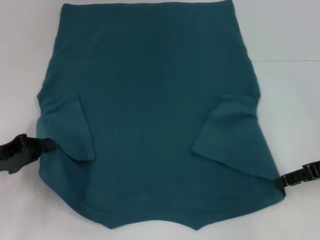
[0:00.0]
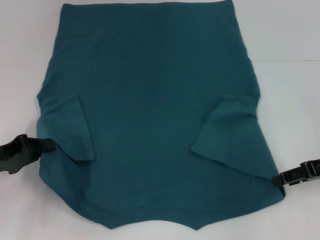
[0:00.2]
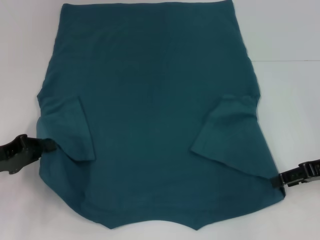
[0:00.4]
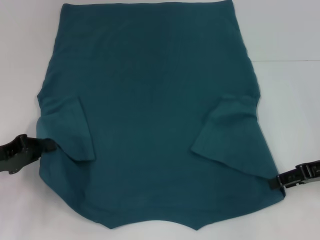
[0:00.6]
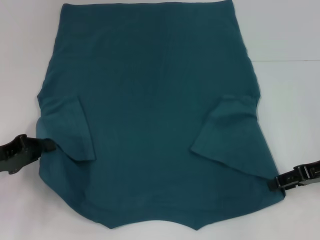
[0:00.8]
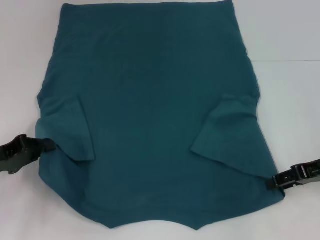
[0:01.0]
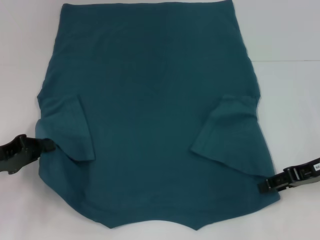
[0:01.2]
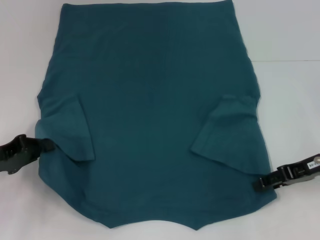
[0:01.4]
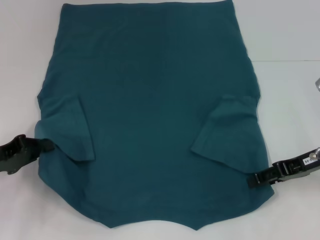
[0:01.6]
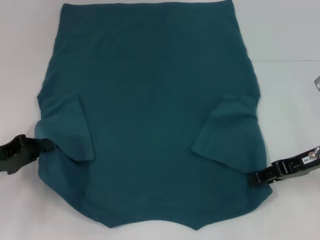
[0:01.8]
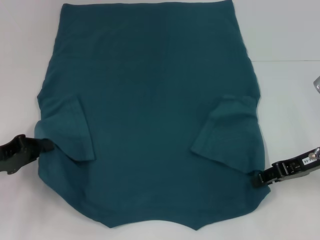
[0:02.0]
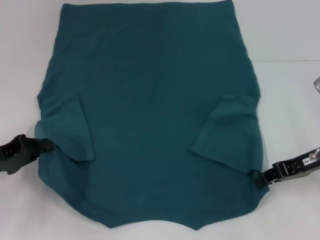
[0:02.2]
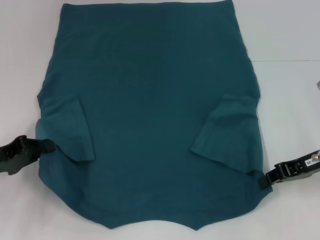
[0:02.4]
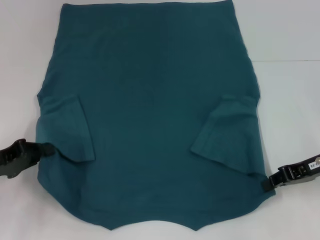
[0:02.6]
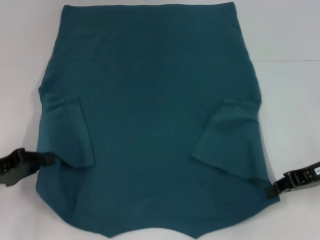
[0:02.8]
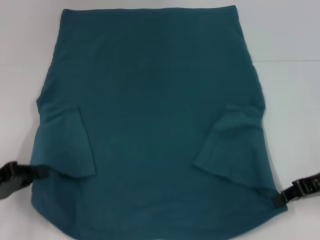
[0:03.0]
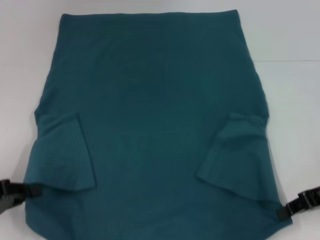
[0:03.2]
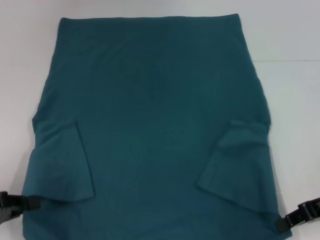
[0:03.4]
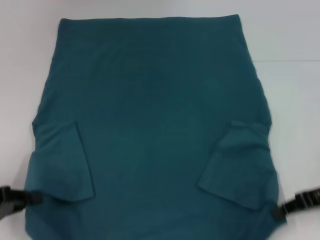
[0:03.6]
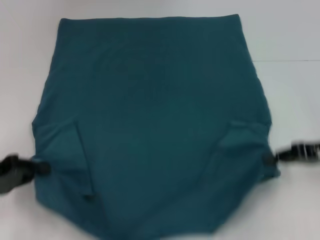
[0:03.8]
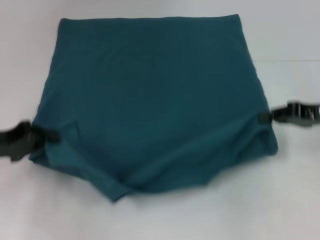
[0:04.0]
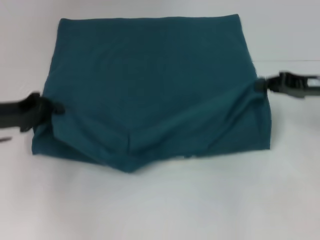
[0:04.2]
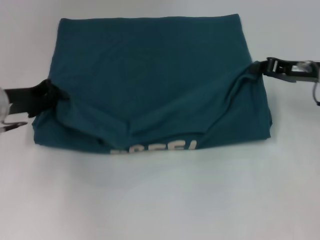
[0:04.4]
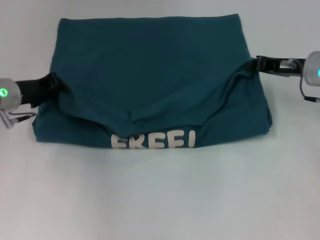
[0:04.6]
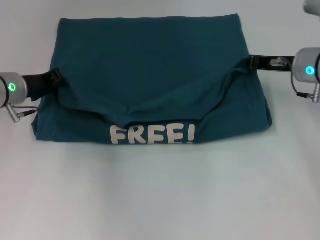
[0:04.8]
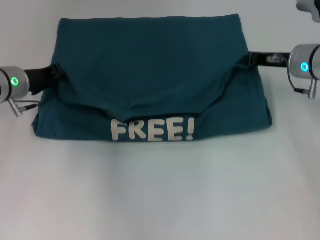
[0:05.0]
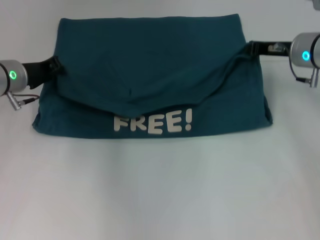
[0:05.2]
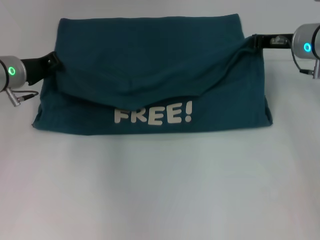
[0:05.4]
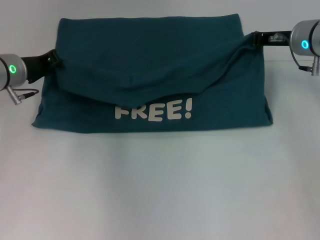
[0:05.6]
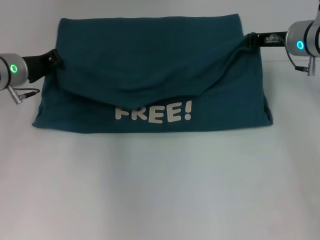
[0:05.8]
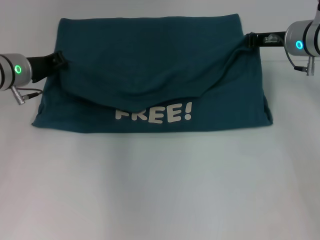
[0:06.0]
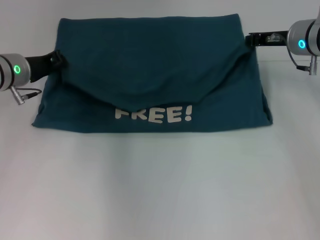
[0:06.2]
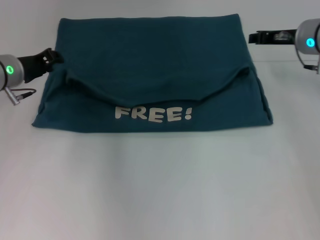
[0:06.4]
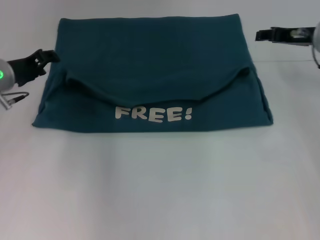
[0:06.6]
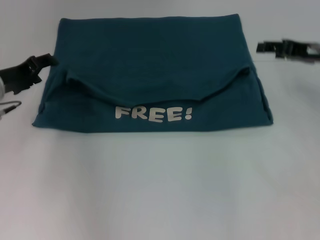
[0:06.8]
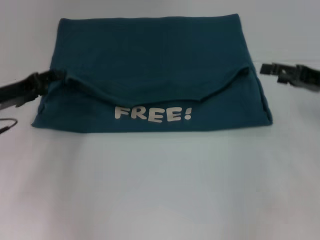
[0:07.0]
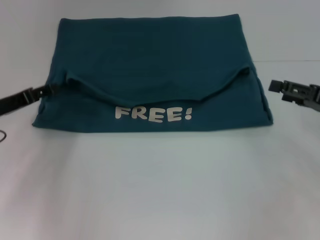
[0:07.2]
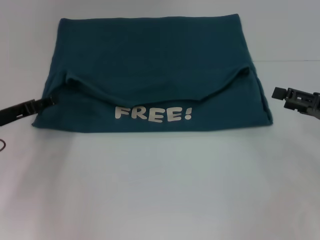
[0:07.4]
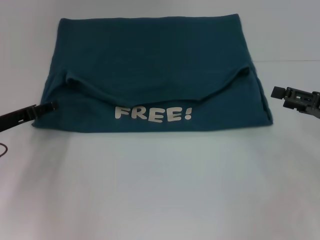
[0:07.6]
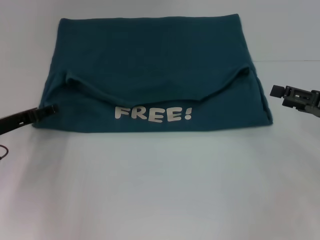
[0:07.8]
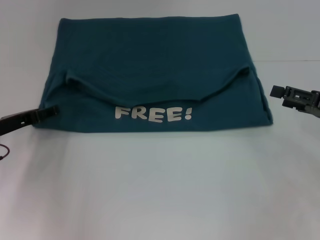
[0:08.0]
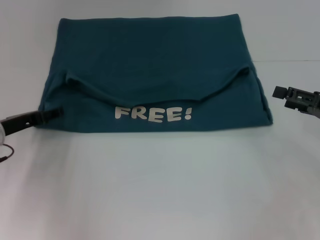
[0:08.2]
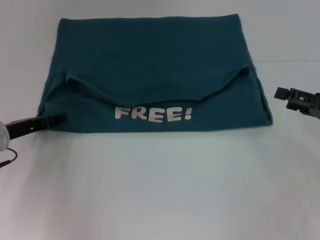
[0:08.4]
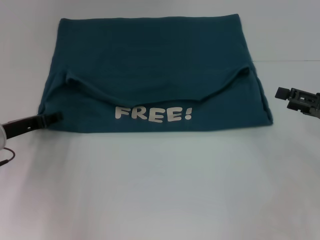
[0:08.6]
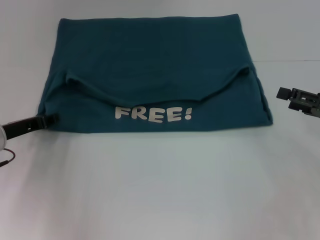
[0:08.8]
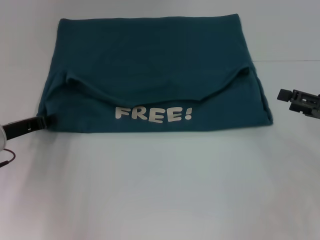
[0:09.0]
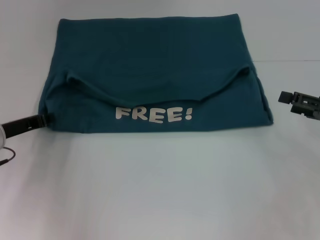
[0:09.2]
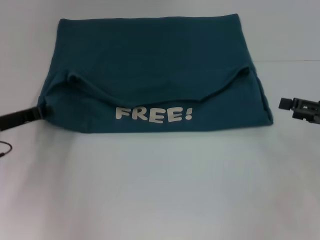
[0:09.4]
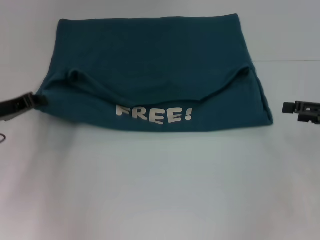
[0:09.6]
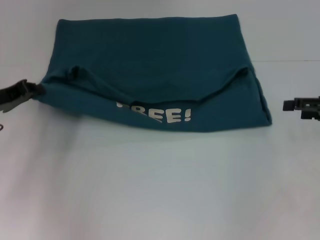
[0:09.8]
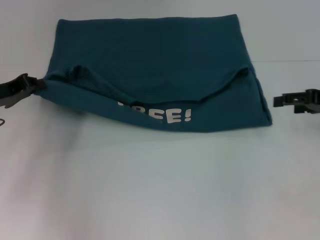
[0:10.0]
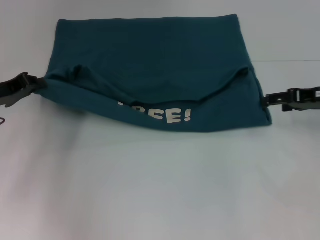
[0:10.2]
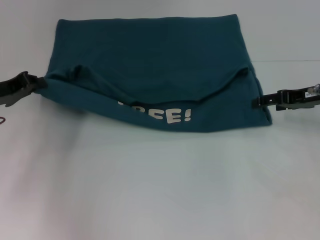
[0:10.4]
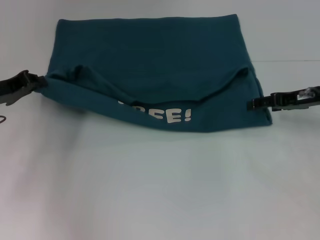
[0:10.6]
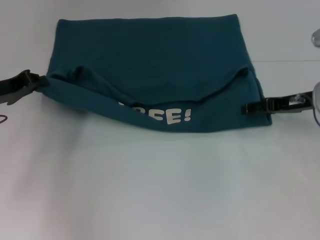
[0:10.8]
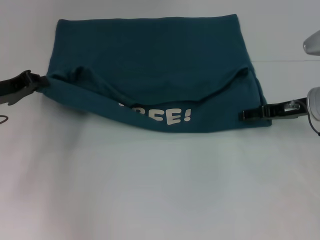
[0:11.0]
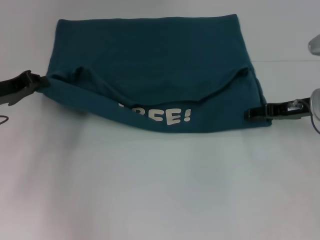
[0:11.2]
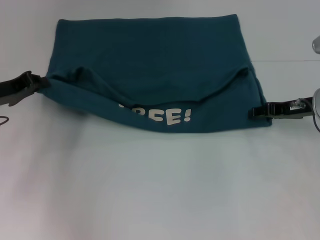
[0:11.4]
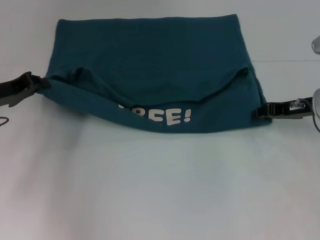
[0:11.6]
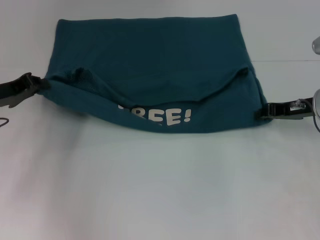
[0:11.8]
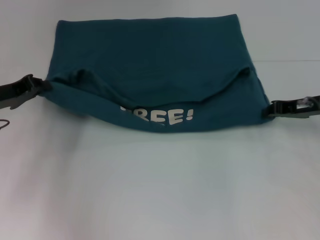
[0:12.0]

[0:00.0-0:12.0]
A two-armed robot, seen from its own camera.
Step, 0:00.0 to 0:02.2: Grab the bottom right corner with your right hand.
Step, 0:02.4 to 0:06.6: Fold the clothes to the left.
Step, 0:02.4 to 0:06.6: Fold the clothes to the right.
0:00.0 to 0:01.6: The grippers make only small movements.
0:01.6 to 0:03.0: The right gripper closes up.
0:03.0 to 0:04.4: Both grippers move forward, roughly 10 cm.
0:04.4 to 0:06.0: The left gripper is displaced forward by some 5 cm, while the right gripper goes approximately 10 cm forward and to the left.
0:06.0 to 0:07.6: The left gripper goes approximately 10 cm backward, to the left and downward, and opens up; the right gripper heads backward and to the right, covering approximately 20 cm, and opens up.
0:07.6 to 0:09.0: The left gripper closes.
0:09.0 to 0:10.4: The left gripper travels upward by some 5 cm, and closes, while the right gripper is displaced forward and to the left by some 10 cm.
0:10.4 to 0:12.0: The right gripper closes its fingers.

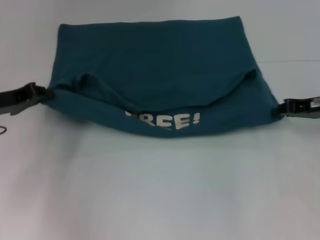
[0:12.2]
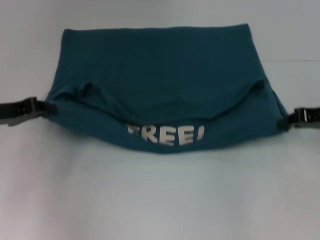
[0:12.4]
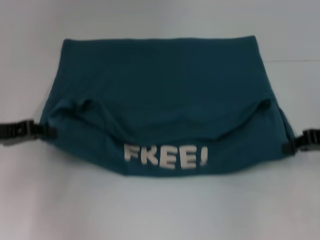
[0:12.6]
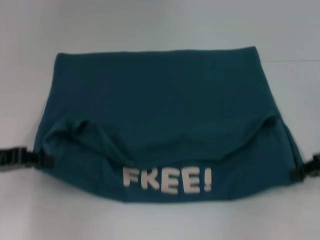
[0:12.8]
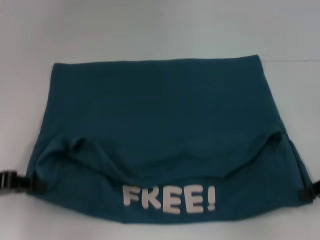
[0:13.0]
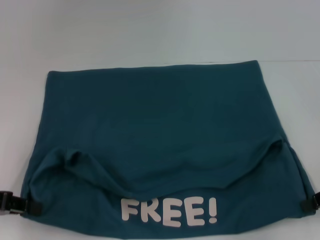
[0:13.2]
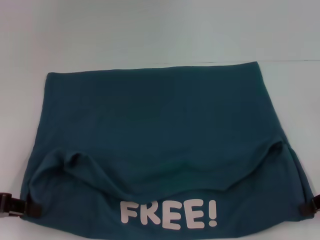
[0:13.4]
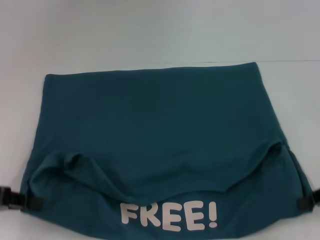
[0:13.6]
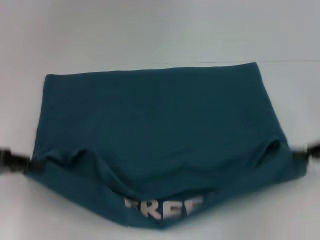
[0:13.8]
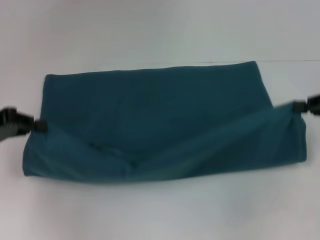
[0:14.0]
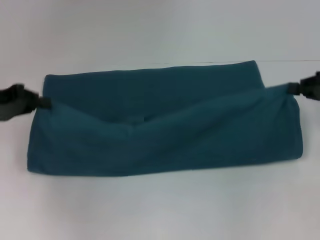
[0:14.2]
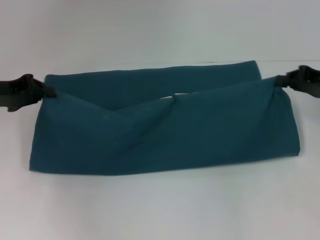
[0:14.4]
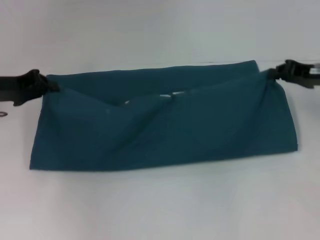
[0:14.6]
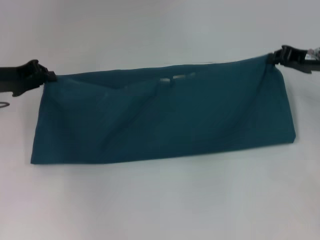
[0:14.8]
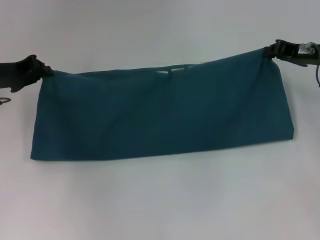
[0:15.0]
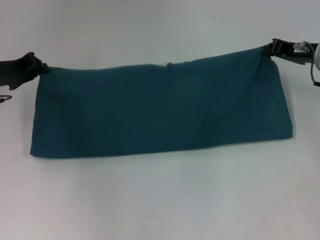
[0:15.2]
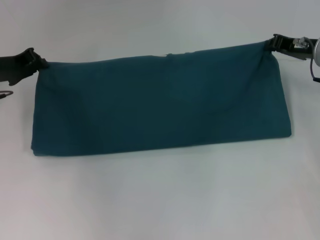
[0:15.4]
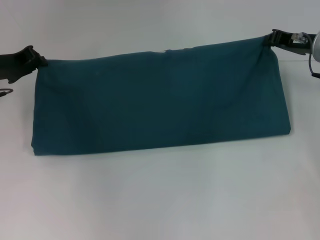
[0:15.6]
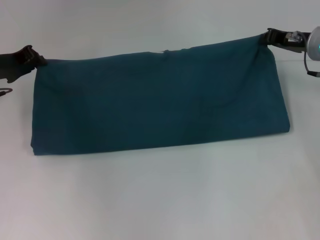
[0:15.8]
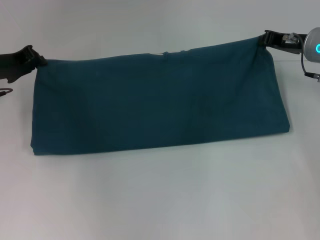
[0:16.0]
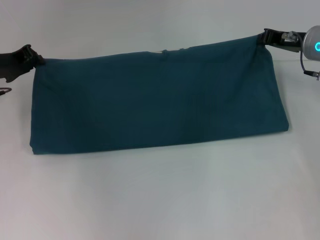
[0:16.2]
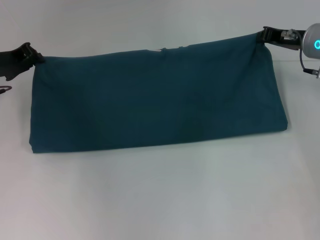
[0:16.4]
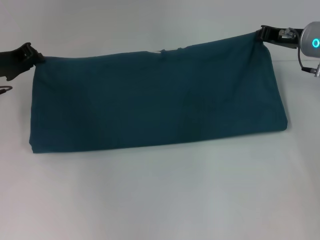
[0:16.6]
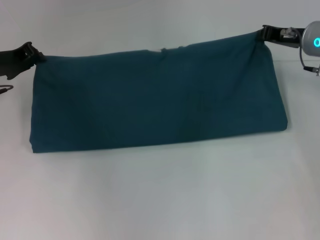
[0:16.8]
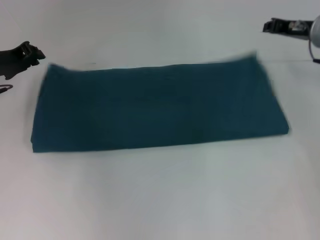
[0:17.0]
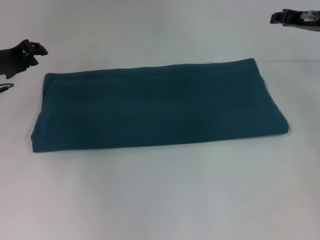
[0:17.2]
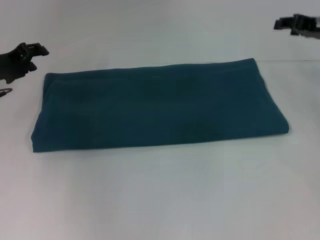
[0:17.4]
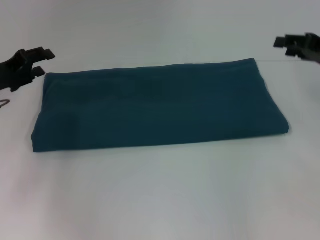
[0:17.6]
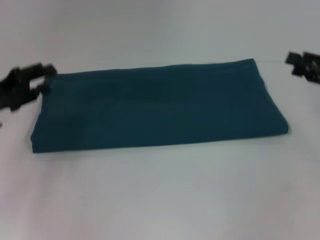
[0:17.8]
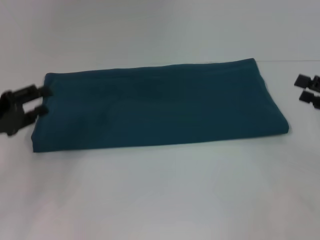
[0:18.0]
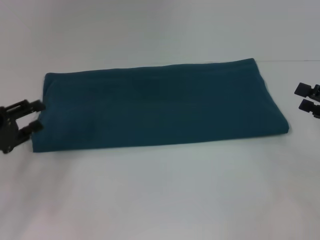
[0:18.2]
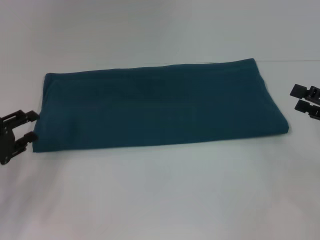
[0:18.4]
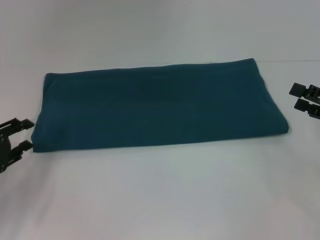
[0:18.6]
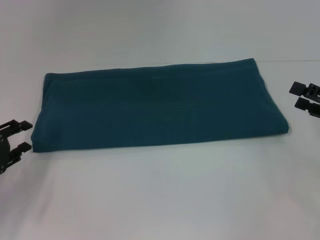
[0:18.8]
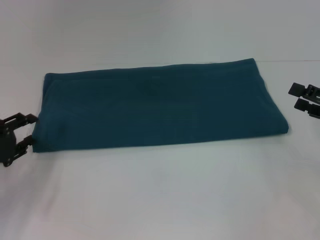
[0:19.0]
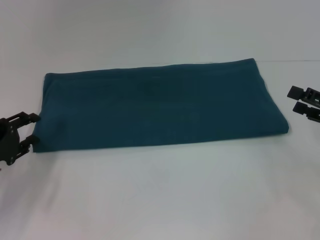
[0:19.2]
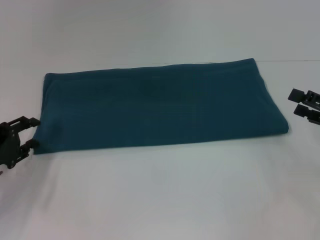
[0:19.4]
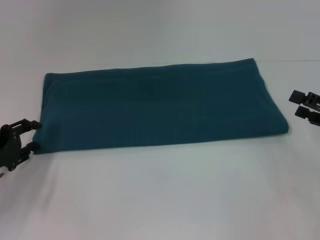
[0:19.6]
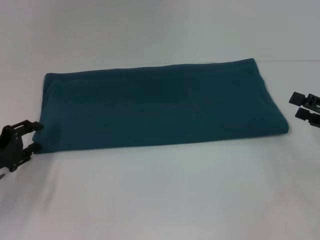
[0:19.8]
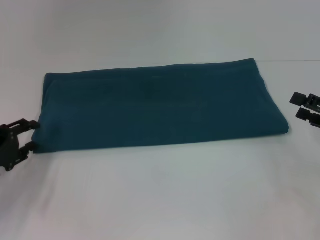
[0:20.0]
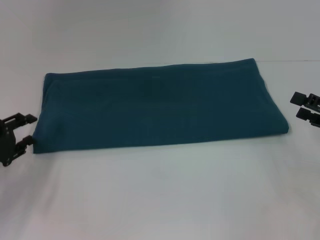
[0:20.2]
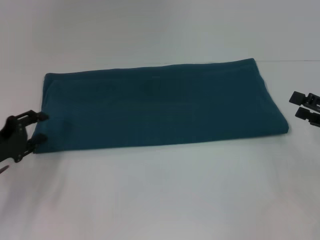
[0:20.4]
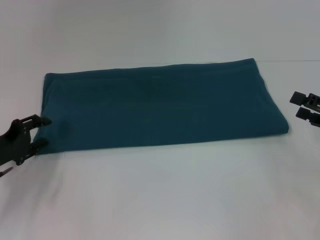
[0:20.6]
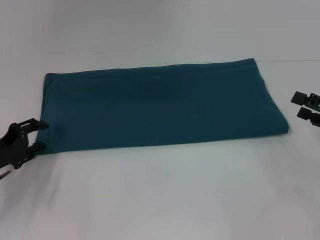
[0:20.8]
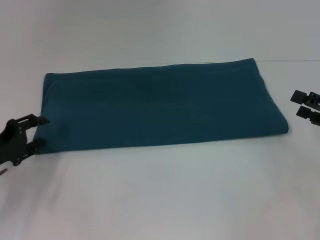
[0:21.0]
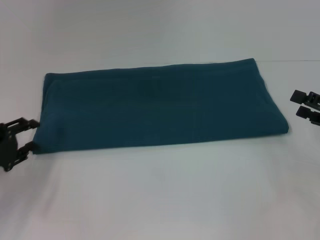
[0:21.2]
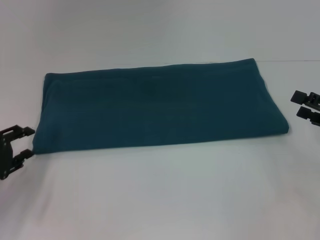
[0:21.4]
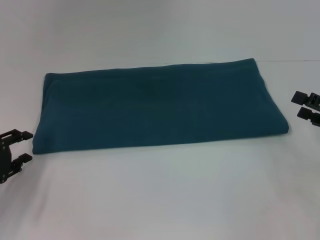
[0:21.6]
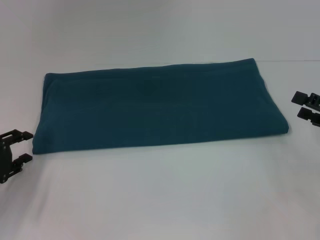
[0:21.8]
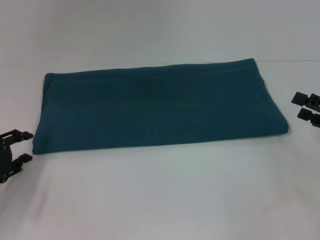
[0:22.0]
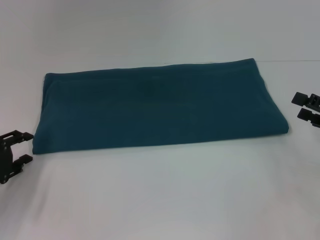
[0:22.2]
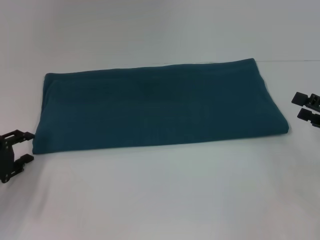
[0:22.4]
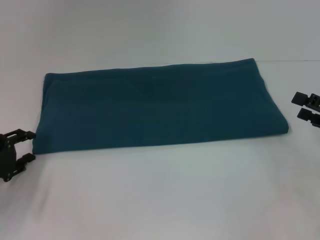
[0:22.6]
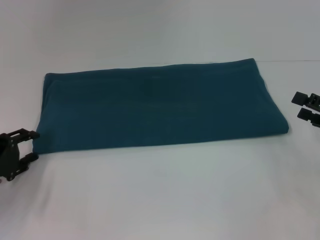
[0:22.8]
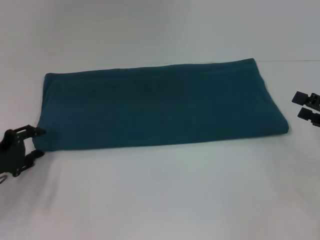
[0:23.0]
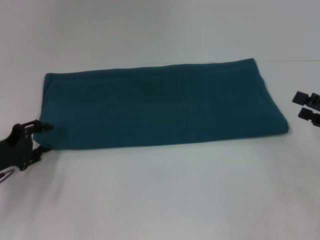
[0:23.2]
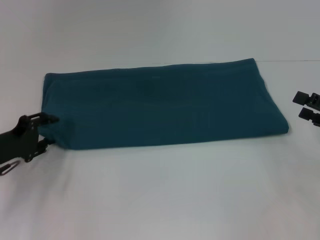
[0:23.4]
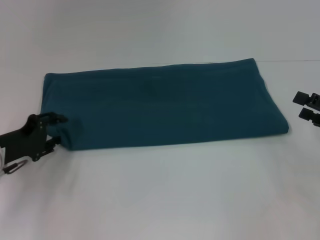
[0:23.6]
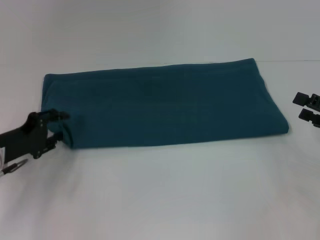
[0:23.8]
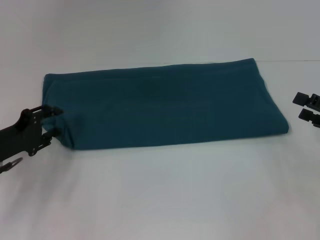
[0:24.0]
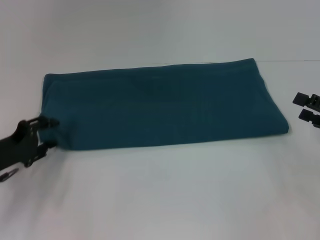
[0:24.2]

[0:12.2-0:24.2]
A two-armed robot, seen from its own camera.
Step, 0:13.4 to 0:17.2: Fold the clothes to the right.
0:12.2 to 0:13.8: The grippers both shift backward by about 10 cm.
0:13.8 to 0:15.2: The left gripper goes roughly 15 cm forward. The right gripper travels forward and to the left by roughly 15 cm.
0:15.2 to 0:16.6: The grippers stay close to where they were, moving slightly.
0:16.6 to 0:18.2: The right gripper heads backward and to the right, covering about 20 cm, and opens its fingers. Meanwhile the left gripper travels backward by approximately 15 cm, and opens its fingers.
0:18.2 to 0:21.2: There are only small adjustments of the grippers.
0:21.2 to 0:24.2: The grippers make only small movements.
